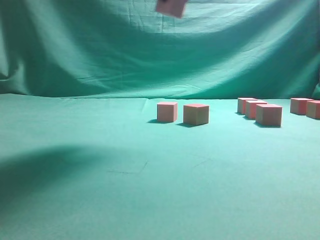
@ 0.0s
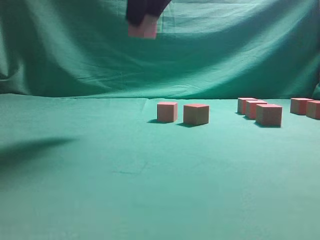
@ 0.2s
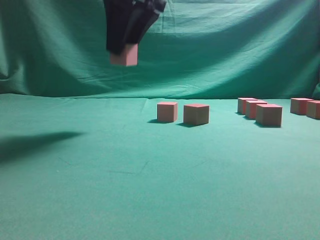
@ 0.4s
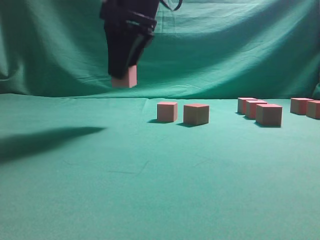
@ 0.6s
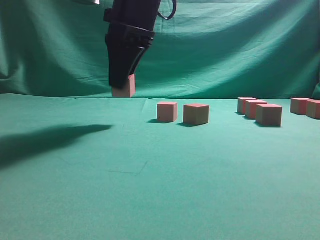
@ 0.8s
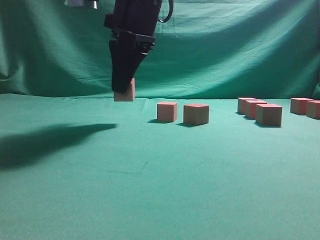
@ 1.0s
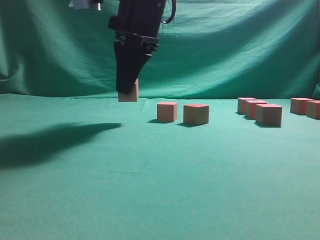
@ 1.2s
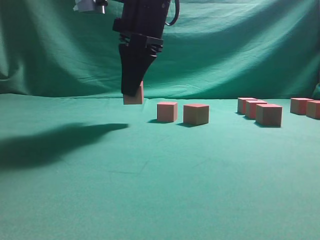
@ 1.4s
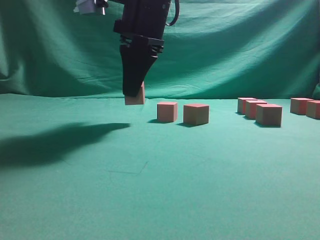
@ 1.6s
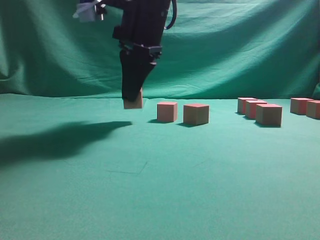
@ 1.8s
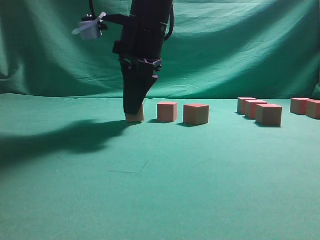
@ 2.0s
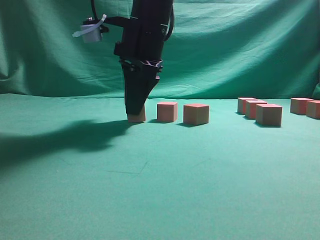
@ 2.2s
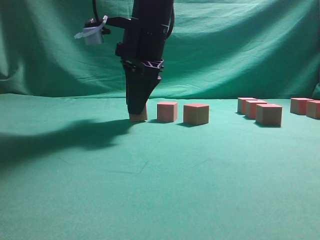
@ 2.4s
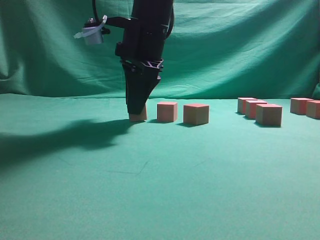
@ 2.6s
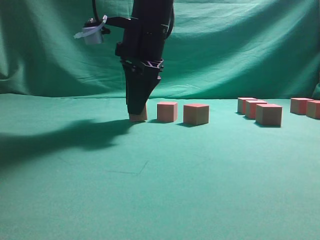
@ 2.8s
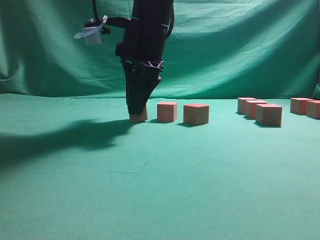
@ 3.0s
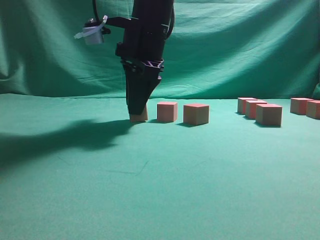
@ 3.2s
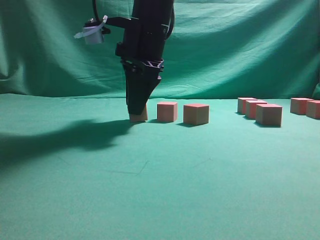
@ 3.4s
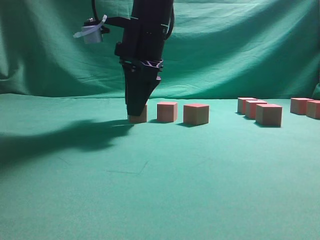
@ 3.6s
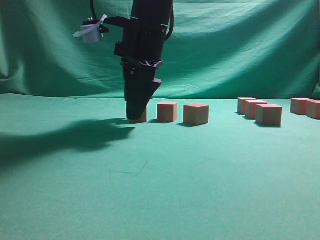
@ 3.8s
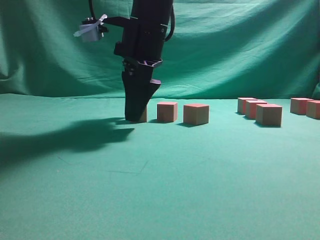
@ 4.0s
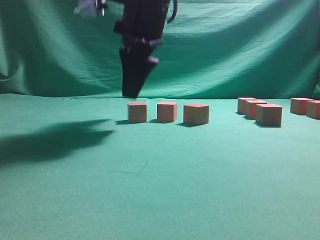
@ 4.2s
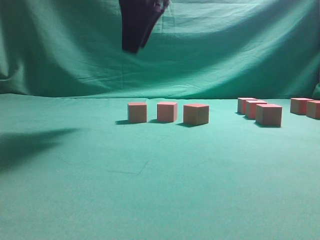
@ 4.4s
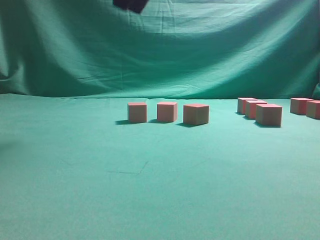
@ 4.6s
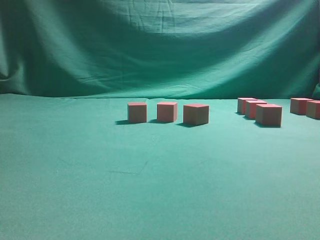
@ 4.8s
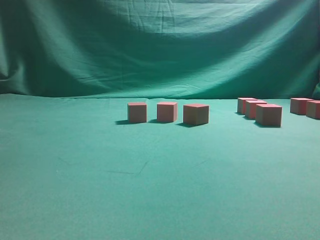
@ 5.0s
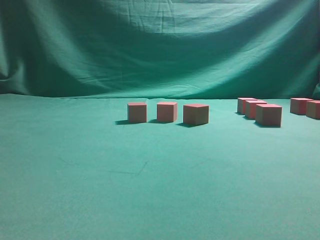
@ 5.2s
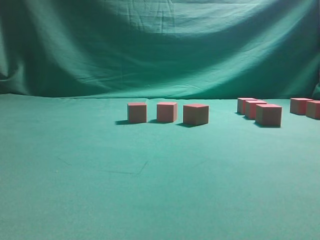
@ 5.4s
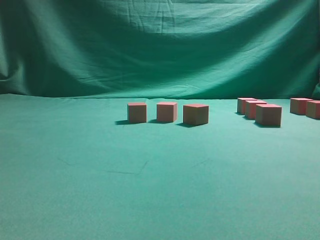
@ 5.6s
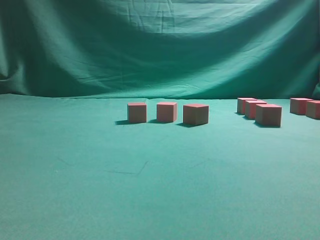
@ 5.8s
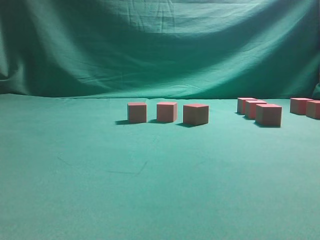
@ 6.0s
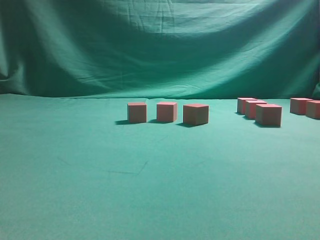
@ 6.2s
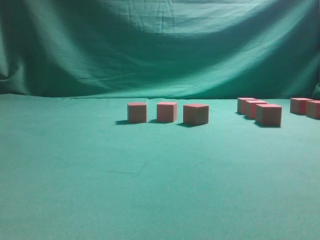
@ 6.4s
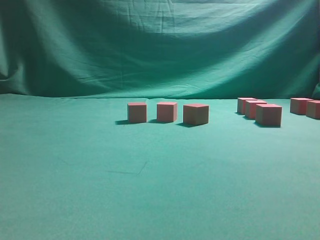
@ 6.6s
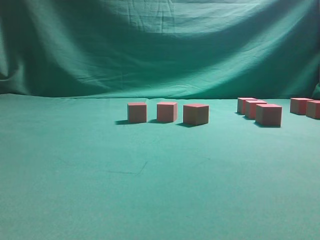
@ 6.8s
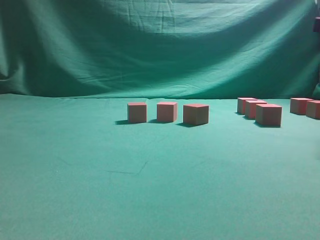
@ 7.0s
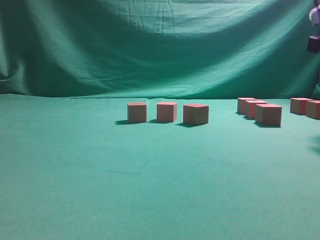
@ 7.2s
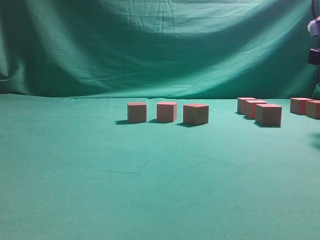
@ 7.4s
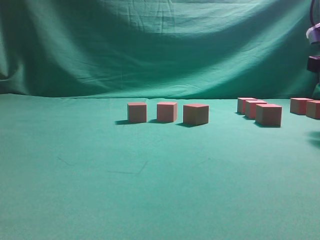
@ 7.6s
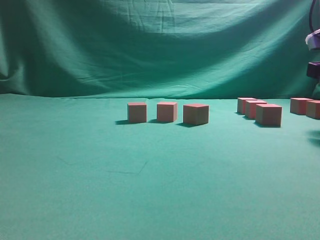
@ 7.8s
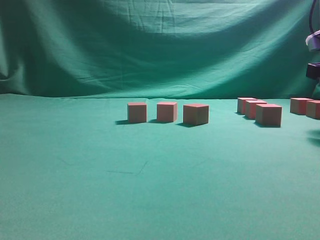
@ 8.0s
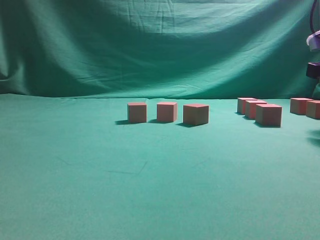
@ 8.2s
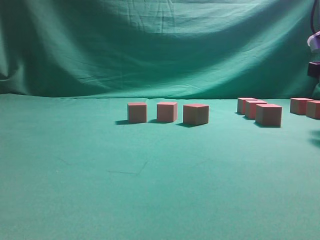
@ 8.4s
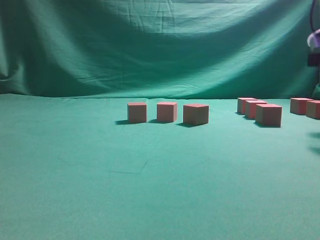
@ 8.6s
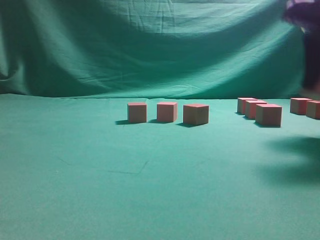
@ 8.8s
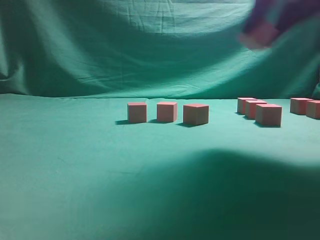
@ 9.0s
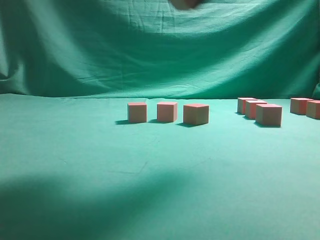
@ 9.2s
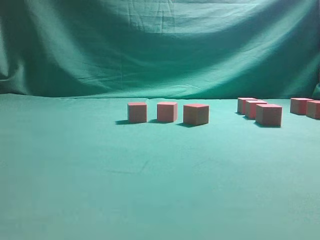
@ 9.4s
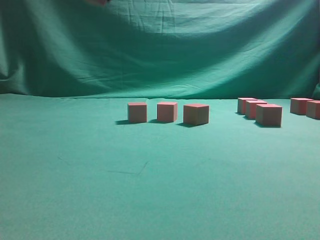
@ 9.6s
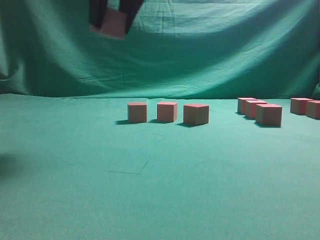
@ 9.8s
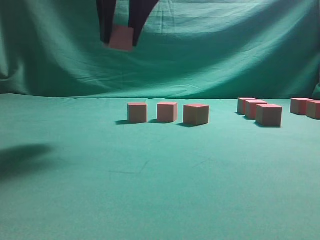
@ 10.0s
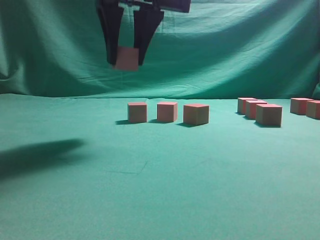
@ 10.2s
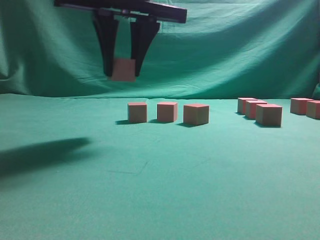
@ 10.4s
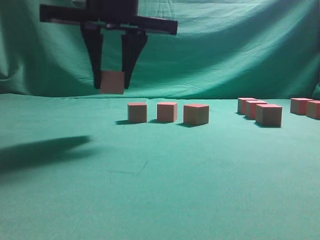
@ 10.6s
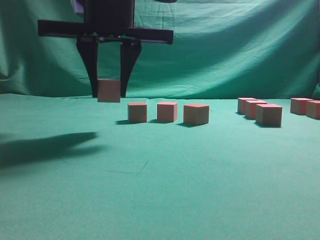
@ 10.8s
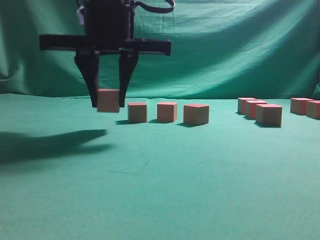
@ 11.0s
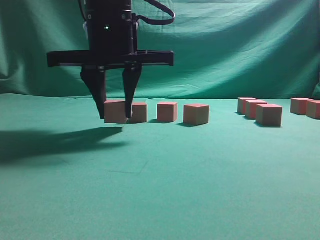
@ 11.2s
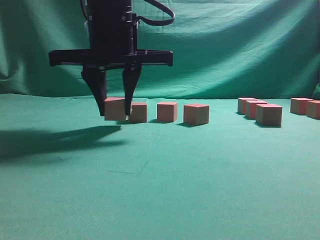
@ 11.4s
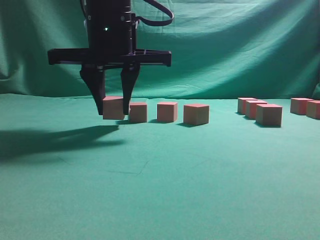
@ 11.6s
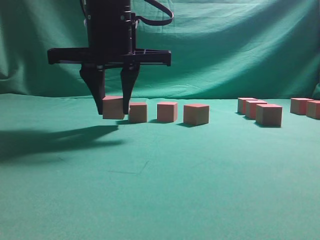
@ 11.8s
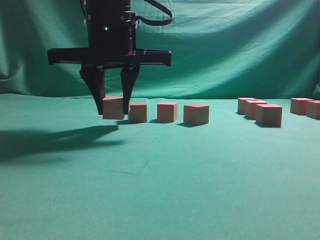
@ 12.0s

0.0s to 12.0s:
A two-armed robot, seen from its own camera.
Task of the whole recording: pick up the multiple cubes in two columns one by one and place them in another position on the table.
Step, 0.0s to 4.4s: Place the block at the correct position to assemble the letter S.
0.0s to 1.6s: The right gripper heads downward and to the left, covering roughly 15 cm.
1.6s to 3.0s: The grippers stay close to where they were, moving slightly.
3.0s to 4.4s: The right gripper goes about 10 cm upward, and opens up.
4.4s to 6.0s: The right gripper travels to the right by about 25 cm, and closes.
6.0s to 7.6s: The right gripper moves downward, roughly 20 cm, and opens up.
7.6s to 9.0s: The right gripper is displaced upward and to the left by about 10 cm, and closes its fingers.
9.0s to 10.4s: The right gripper goes approximately 25 cm to the left.
10.4s to 12.0s: The right gripper heads downward, covering approximately 5 cm.

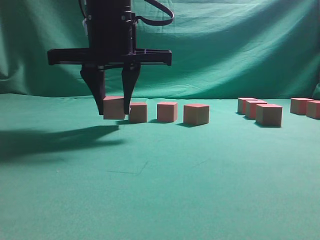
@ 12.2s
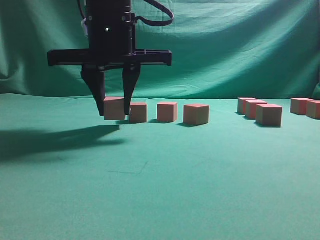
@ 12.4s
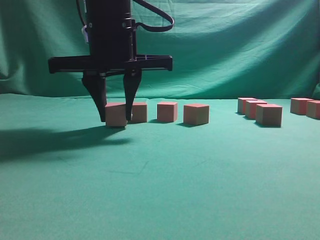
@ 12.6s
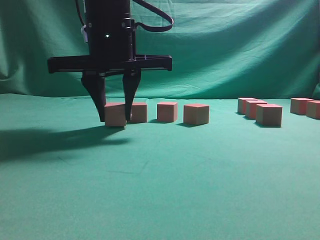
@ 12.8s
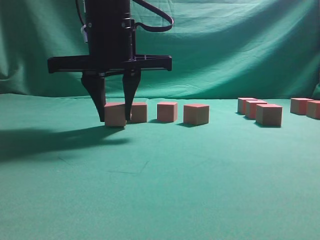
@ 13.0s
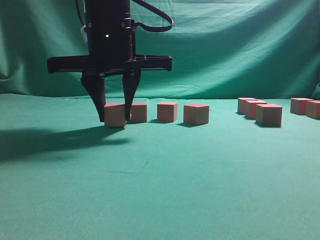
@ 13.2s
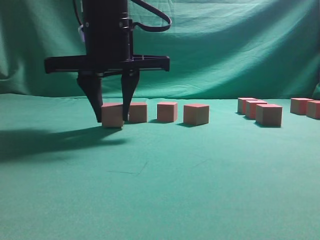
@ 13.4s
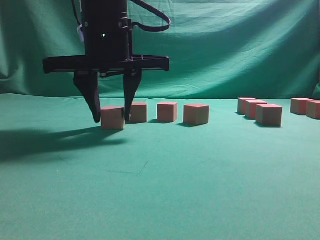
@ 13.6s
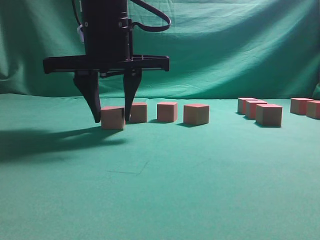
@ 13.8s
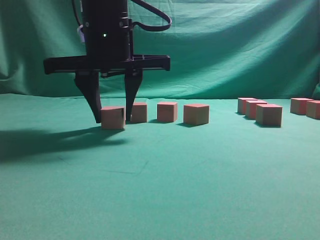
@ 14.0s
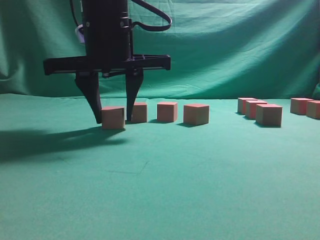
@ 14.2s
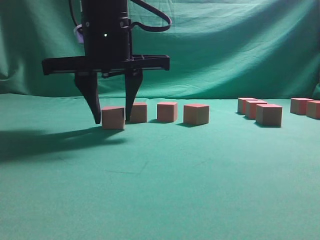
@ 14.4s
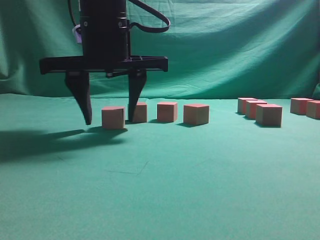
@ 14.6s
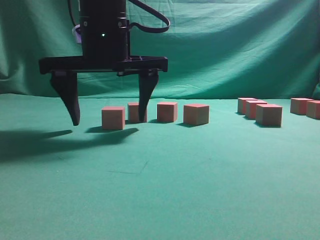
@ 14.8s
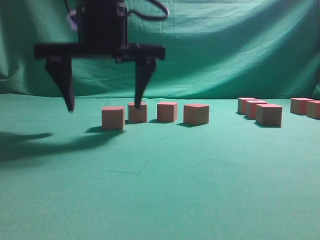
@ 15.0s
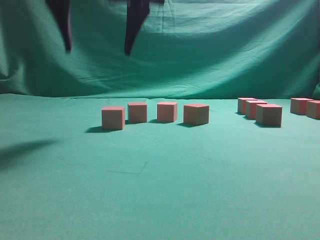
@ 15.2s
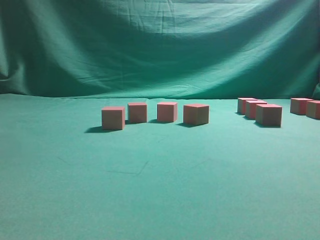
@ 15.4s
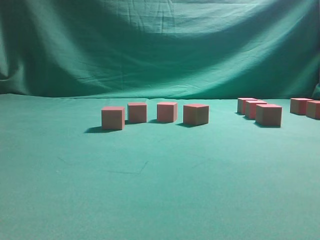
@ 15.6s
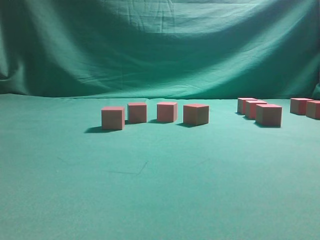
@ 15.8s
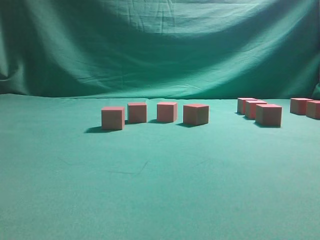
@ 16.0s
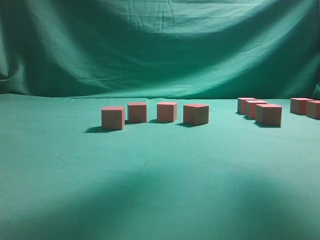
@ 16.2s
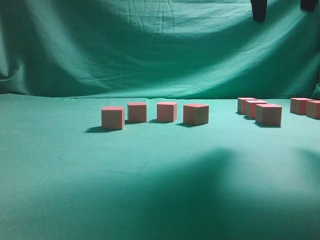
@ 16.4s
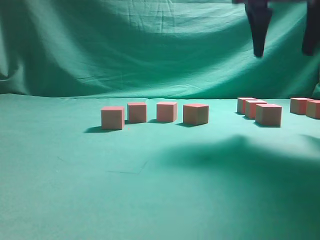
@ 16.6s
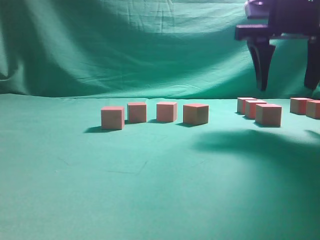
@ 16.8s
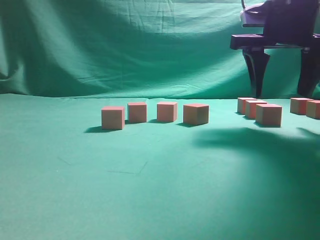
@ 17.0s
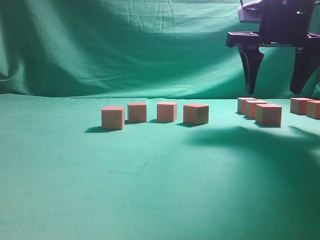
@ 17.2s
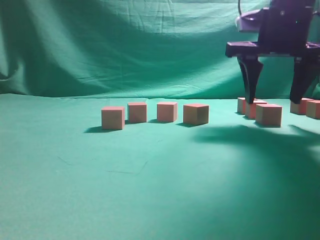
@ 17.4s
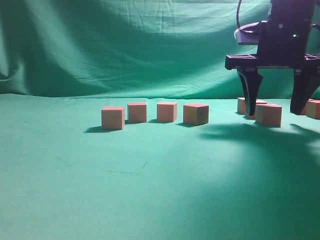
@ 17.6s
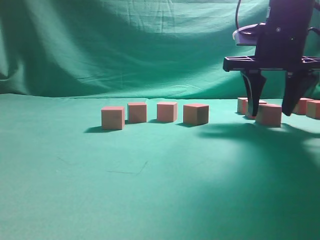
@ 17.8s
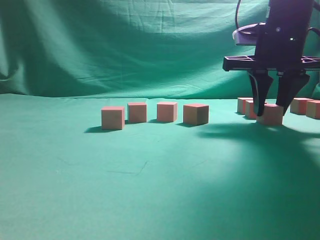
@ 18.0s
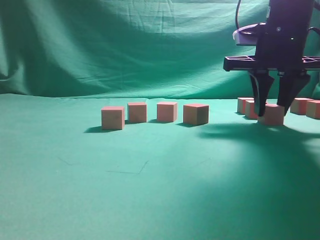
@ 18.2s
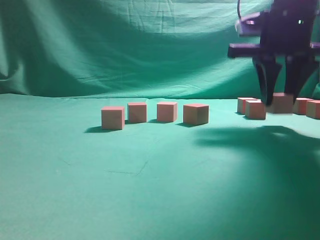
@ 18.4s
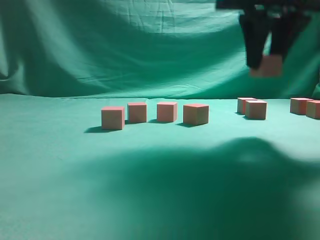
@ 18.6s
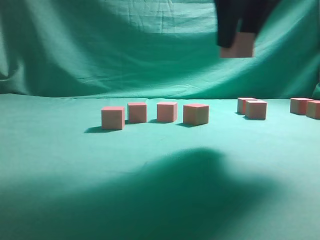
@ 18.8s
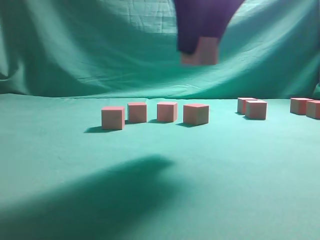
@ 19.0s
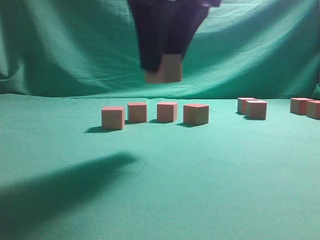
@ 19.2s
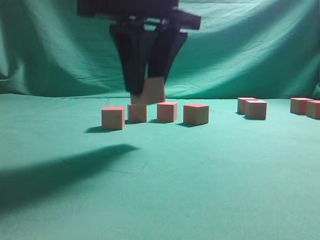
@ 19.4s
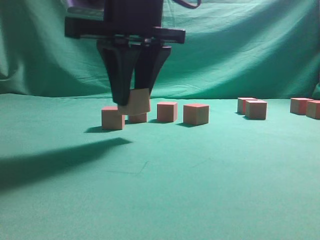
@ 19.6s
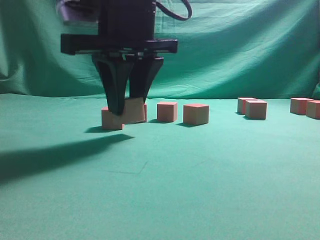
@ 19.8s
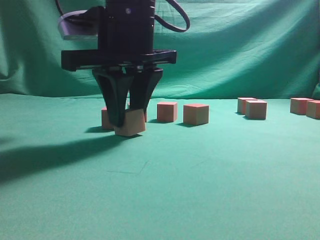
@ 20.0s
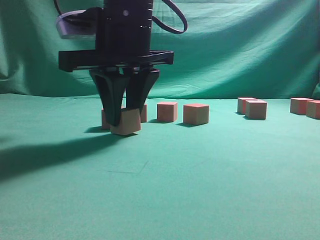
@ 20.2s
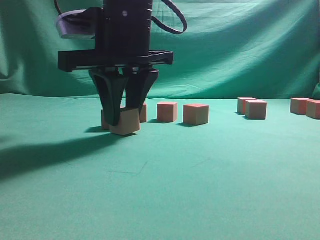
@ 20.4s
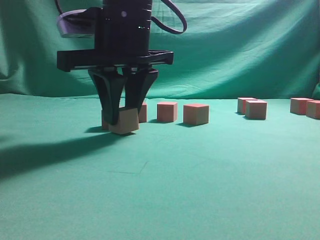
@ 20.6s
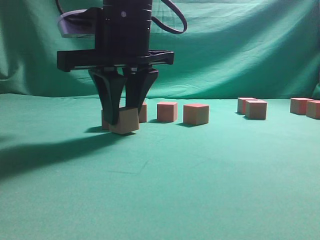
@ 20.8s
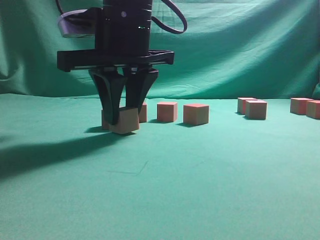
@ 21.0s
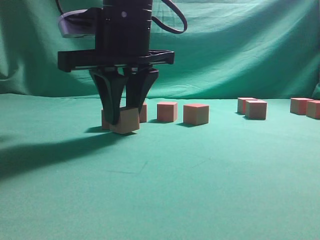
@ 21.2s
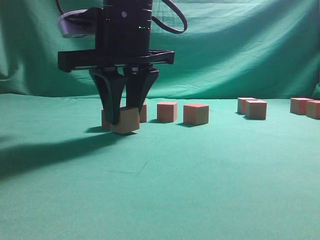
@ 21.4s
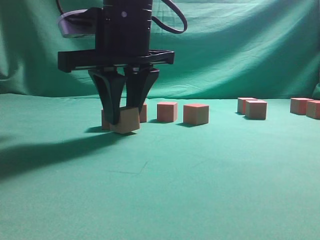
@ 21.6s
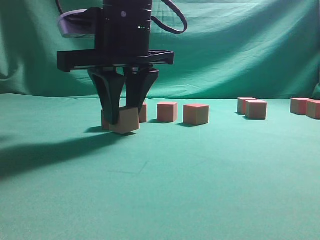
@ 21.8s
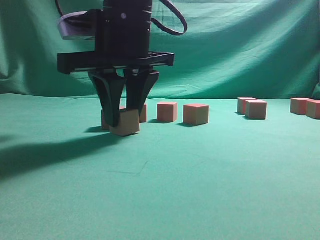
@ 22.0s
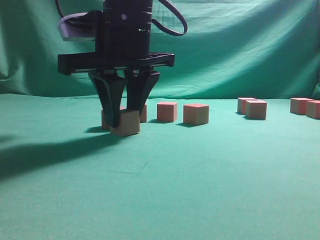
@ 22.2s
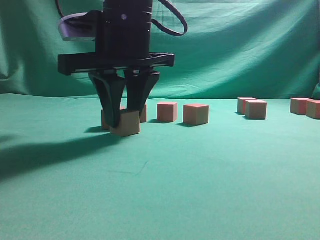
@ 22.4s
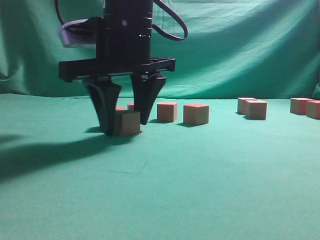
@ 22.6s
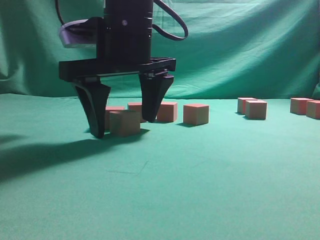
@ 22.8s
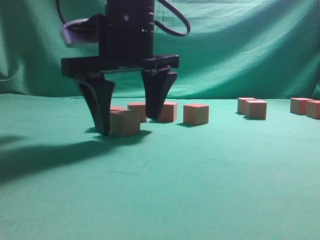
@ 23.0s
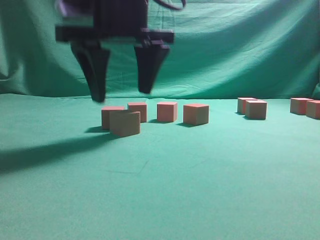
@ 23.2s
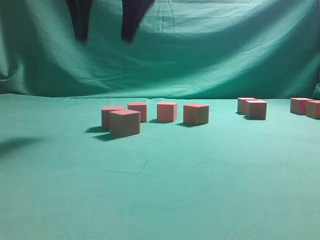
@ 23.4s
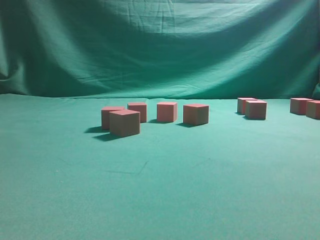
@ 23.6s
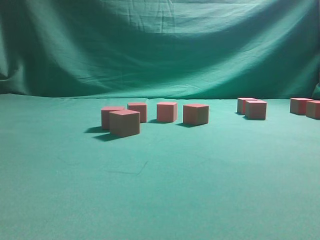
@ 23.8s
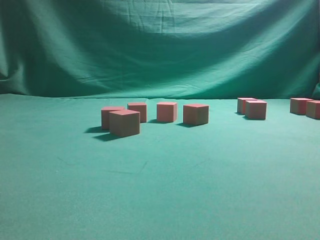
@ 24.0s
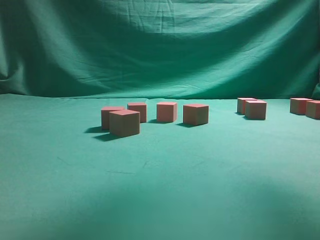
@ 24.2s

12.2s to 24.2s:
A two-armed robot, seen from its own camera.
Task of the whole recording: pick up the multiple cubes in two columns one by one and place them in another position on the table.
Step, 12.2s to 15.2s: Place the block at the correct position to assemble the letter S.
Step, 15.4s to 18.2s: Pick up the block on the table.
Step, 18.6s to 23.2s: Place the block at the correct position to assemble the letter S.
12.2s to 13.8s: Both grippers stay about where they are.
13.8s to 15.2s: The right gripper shifts about 10 cm upward, and opens.
15.2s to 16.6s: The right gripper goes roughly 25 cm to the right.
16.6s to 18.2s: The right gripper heads downward, covering approximately 10 cm, and closes its fingers.
18.2s to 19.8s: The right gripper moves to the left, some 20 cm.
19.8s to 21.2s: There are only small adjustments of the grippers.
21.2s to 22.6s: The two grippers keep their place.
22.6s to 24.2s: The right gripper shifts roughly 30 cm upward and to the right.
